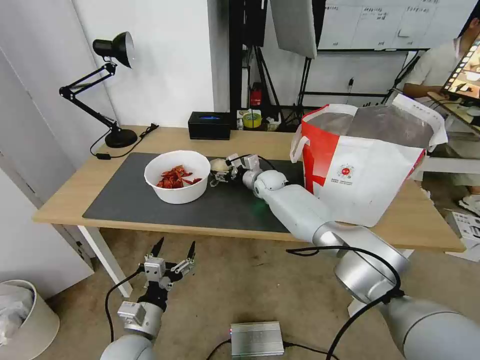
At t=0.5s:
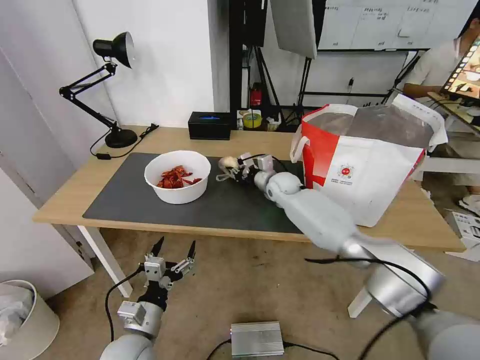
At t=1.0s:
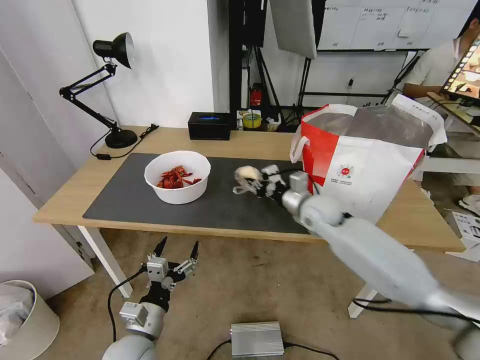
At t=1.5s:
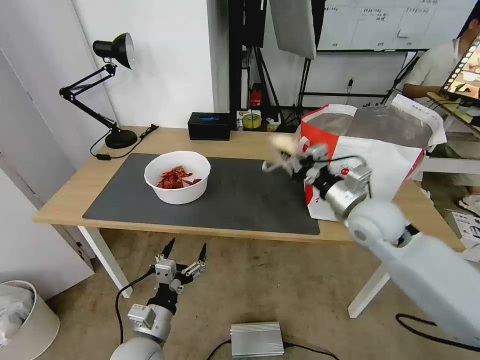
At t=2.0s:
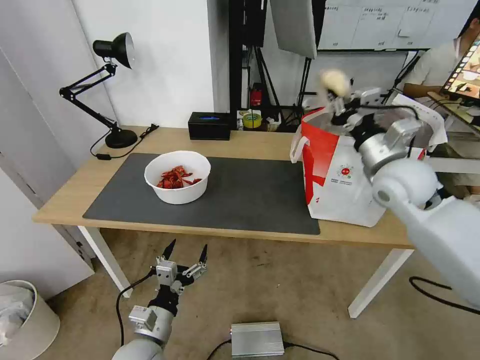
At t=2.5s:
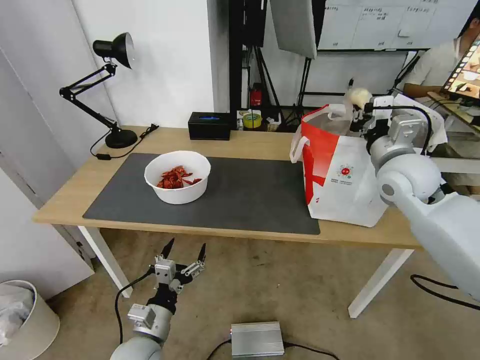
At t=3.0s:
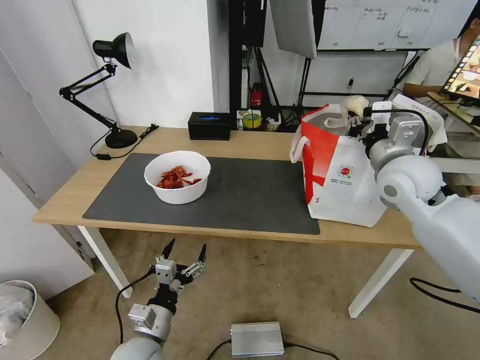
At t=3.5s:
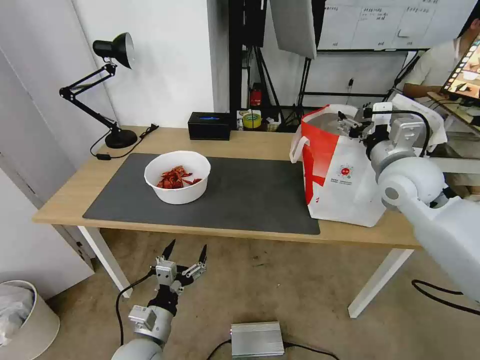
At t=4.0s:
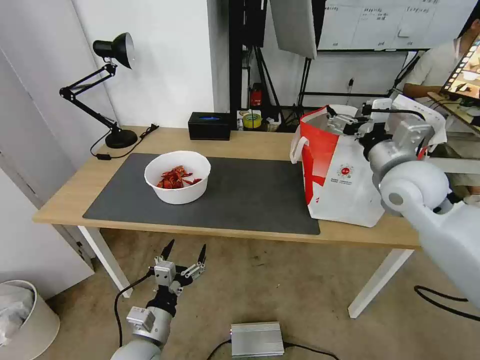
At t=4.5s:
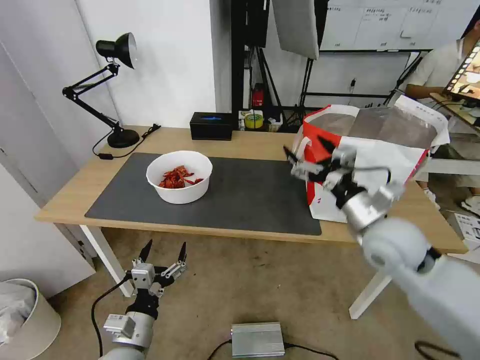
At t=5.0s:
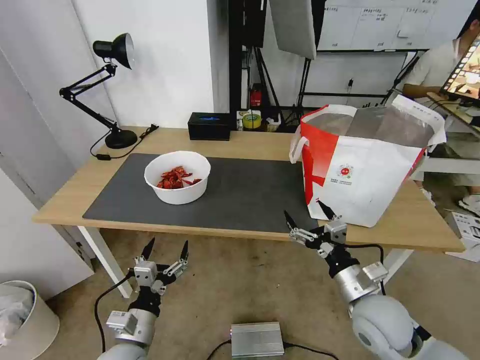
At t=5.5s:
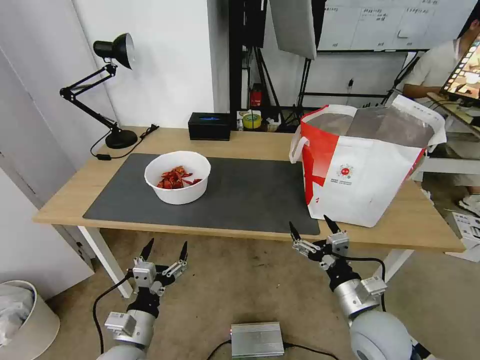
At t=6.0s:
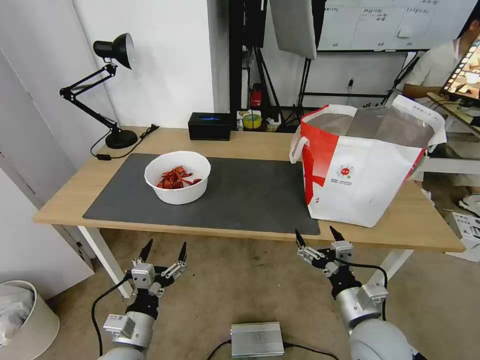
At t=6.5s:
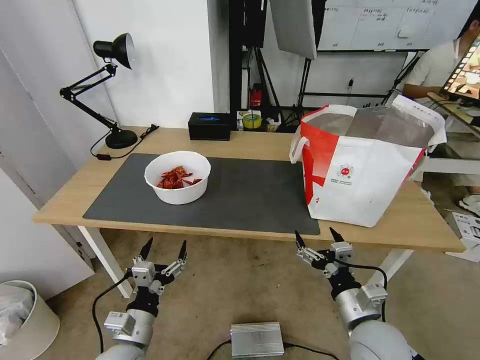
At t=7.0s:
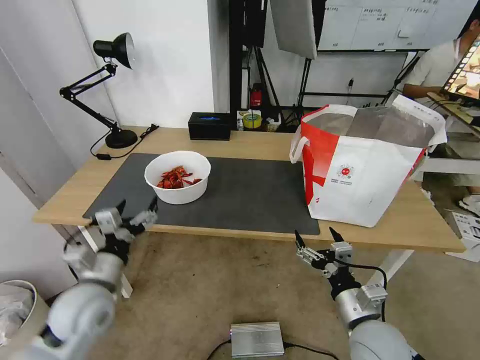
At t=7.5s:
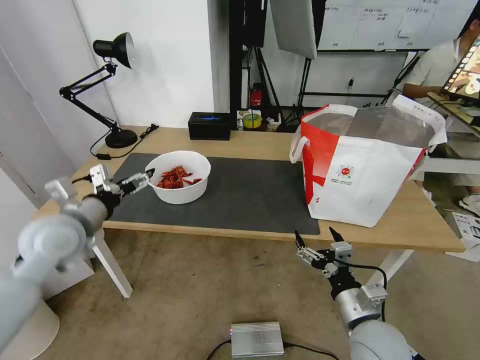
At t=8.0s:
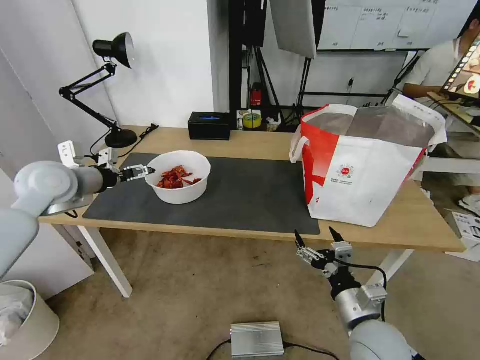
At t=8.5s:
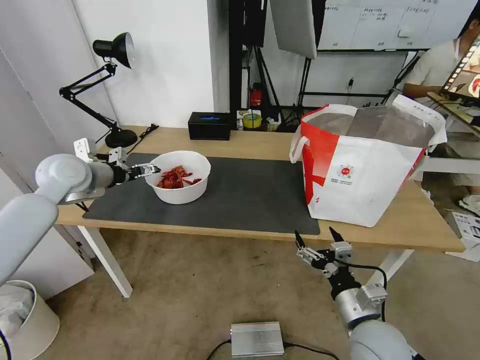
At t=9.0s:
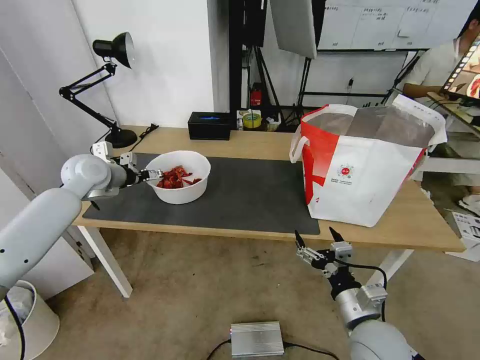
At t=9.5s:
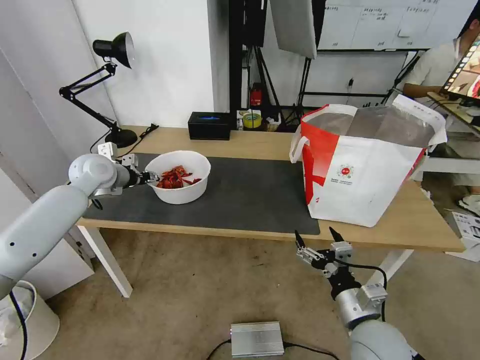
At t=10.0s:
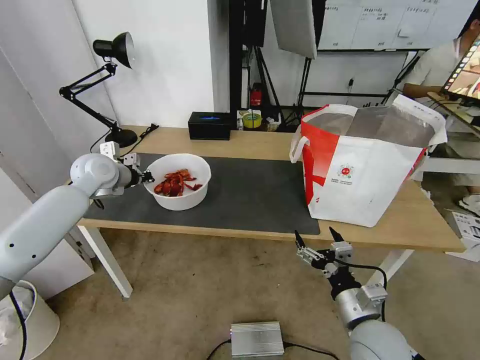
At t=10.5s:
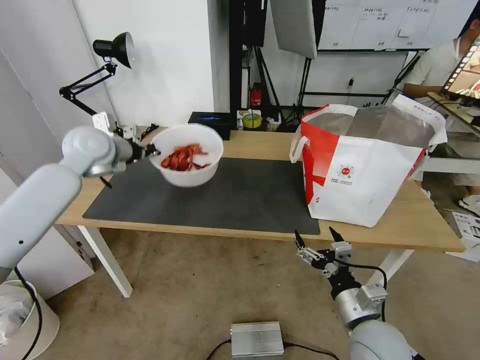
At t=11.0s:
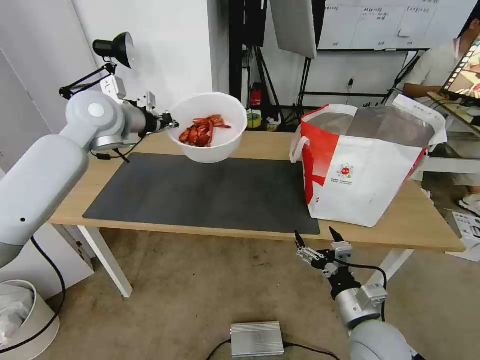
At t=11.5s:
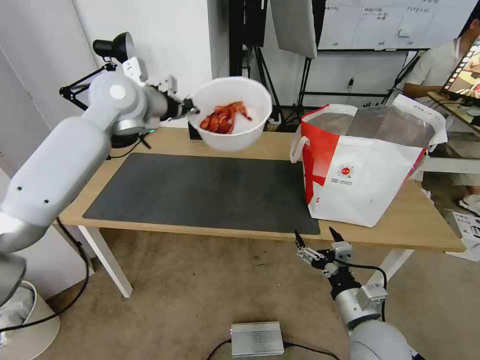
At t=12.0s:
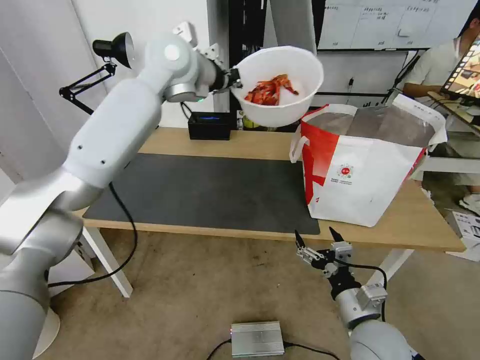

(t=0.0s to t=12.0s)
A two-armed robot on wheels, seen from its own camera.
Task of the whole recording: Pick up the trash from the table and place it into the takeout bag.
t=0.0s - t=2.0s: The right gripper goes about 35 cm to the right, backward and upward, and closes up.
t=2.0s - t=4.0s: The right gripper opens its fingers.
t=4.0s - t=6.0s: The right gripper travels downward and backward by approximately 30 cm.
t=6.0s - t=8.0s: The left gripper heads forward, upward and to the left, covering approximately 40 cm.
t=8.0s - t=10.0s: The left gripper heads forward, covering roughly 10 cm, and closes up.
t=10.0s - t=12.0s: The left gripper goes about 30 cm upward and to the right.

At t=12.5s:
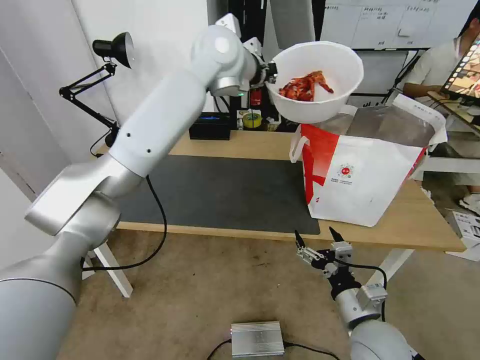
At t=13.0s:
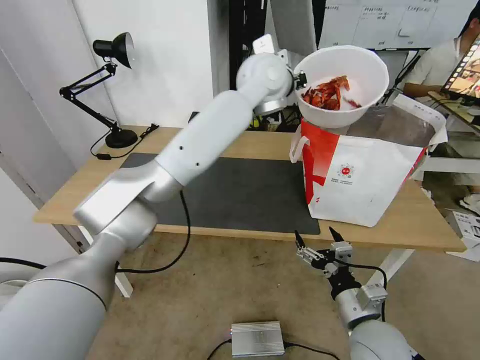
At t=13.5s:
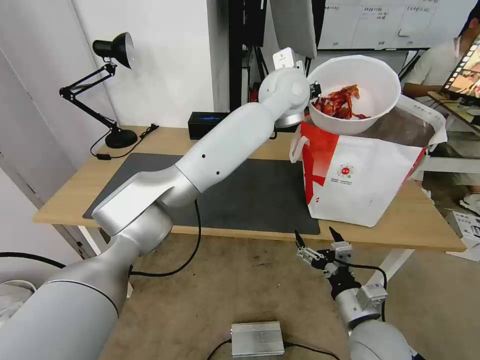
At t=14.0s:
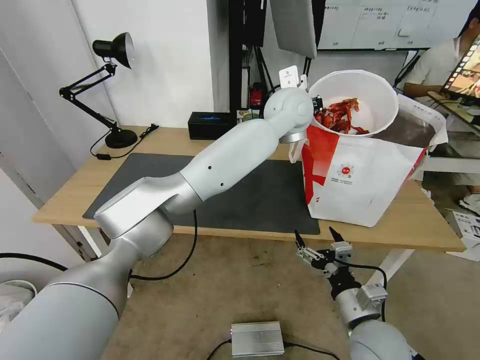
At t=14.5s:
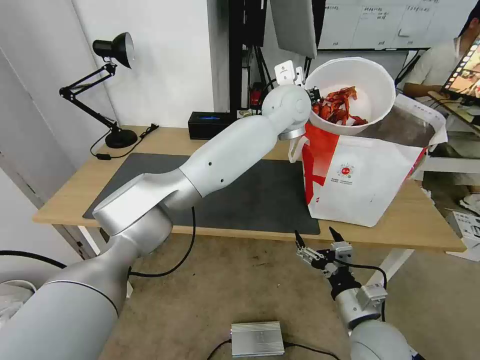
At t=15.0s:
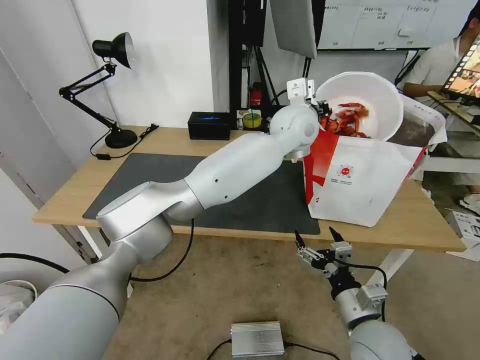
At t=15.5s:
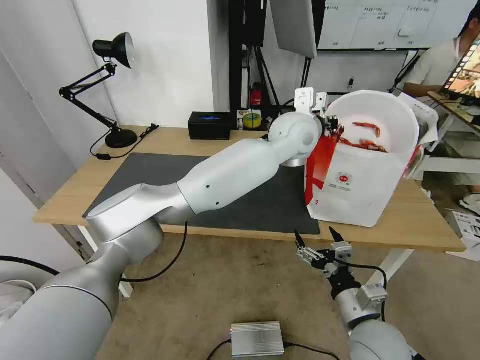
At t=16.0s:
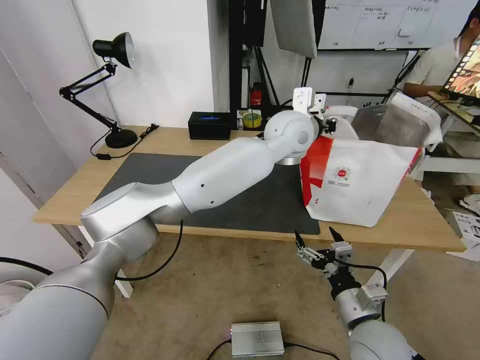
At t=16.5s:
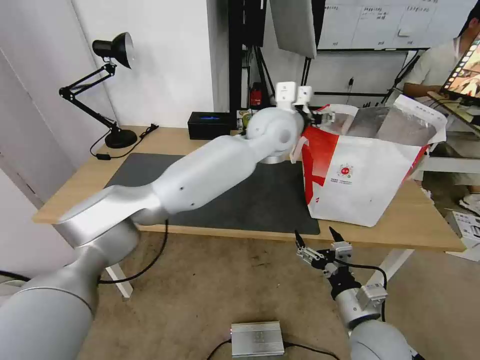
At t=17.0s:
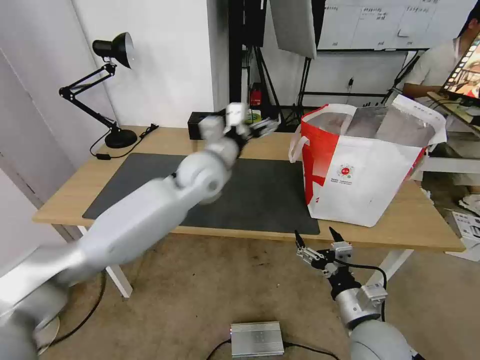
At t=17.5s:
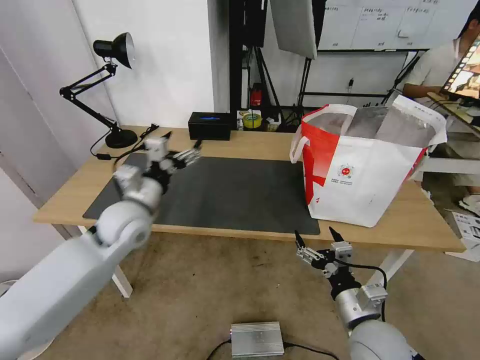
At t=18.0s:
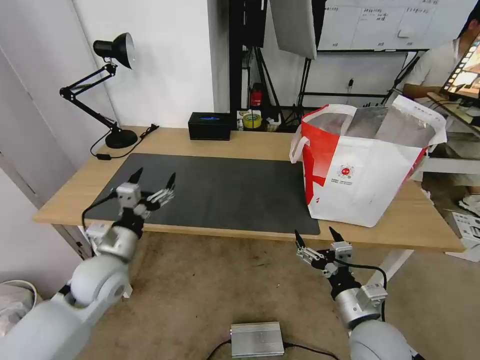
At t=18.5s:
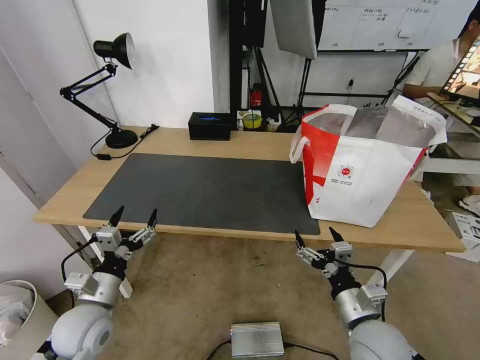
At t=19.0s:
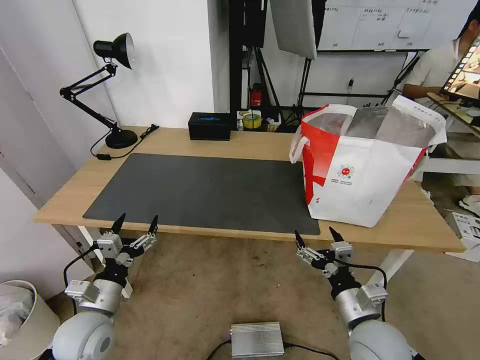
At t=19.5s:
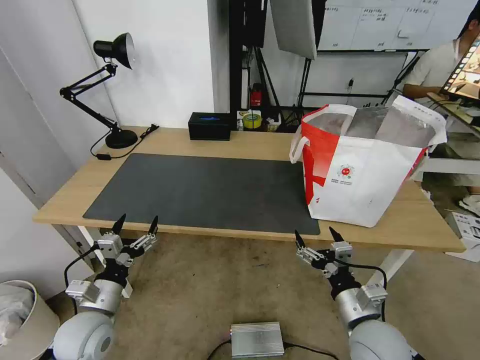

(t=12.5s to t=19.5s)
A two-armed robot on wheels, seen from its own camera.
Task of the whole recording: Pick up the trash from the table and place it into the takeout bag.
t=12.5s - t=14.5s: The left gripper is displaced to the right and downward by approximately 15 cm.
t=14.5s - t=16.0s: The left gripper moves roughly 5 cm, and opens.
t=16.0s - t=17.5s: The left gripper travels to the left and downward by some 35 cm, and opens up.
t=17.5s - t=19.5s: The left gripper travels backward, downward and to the left by roughly 20 cm.

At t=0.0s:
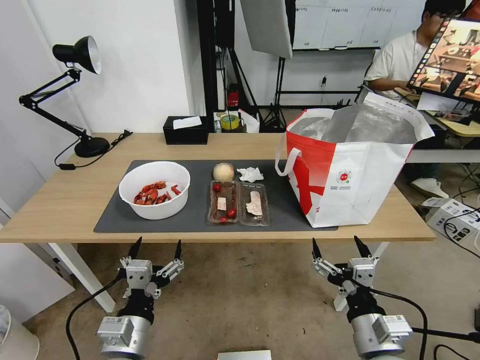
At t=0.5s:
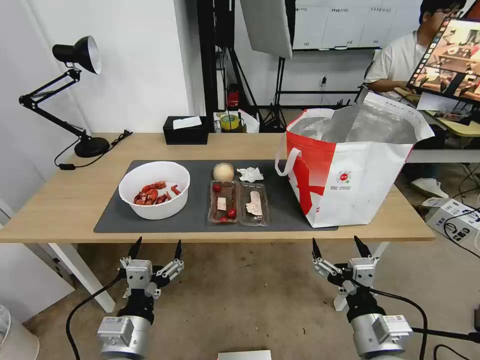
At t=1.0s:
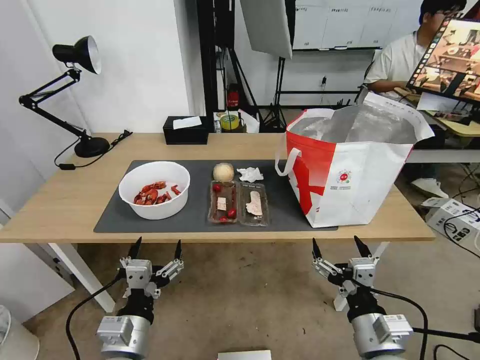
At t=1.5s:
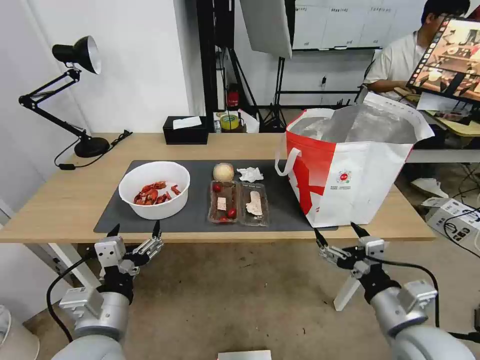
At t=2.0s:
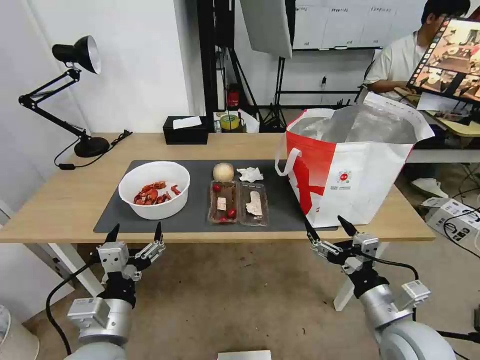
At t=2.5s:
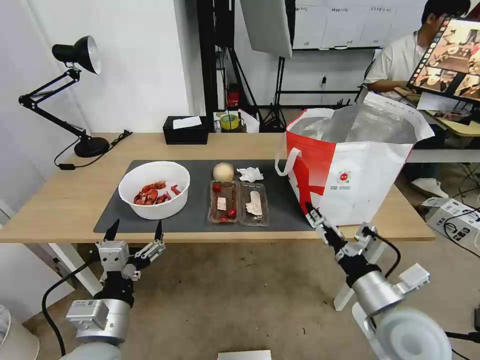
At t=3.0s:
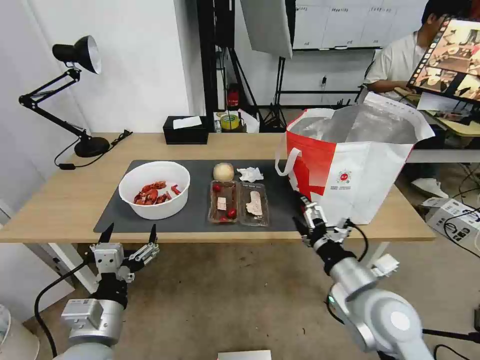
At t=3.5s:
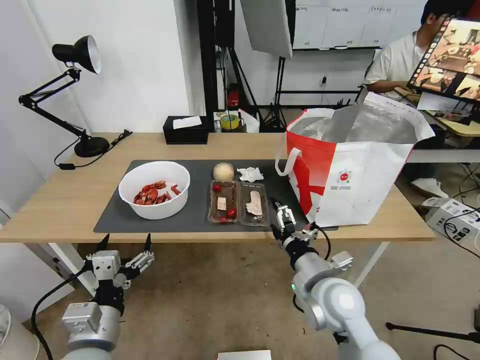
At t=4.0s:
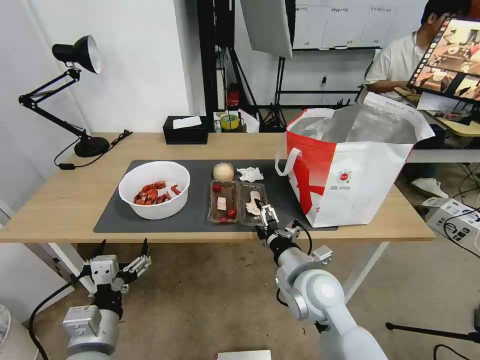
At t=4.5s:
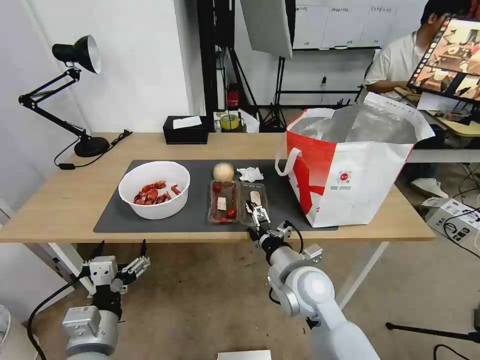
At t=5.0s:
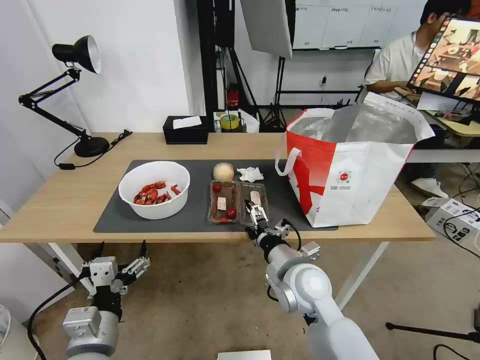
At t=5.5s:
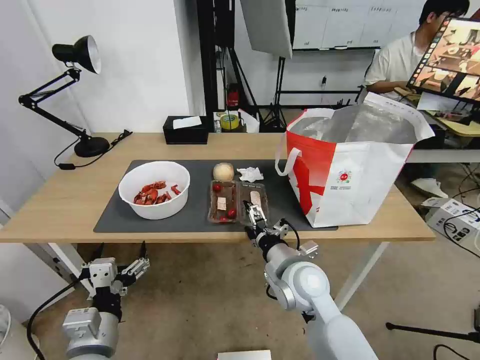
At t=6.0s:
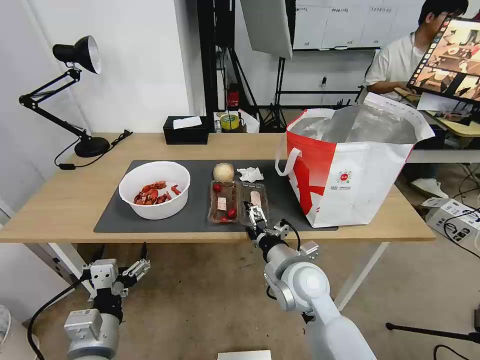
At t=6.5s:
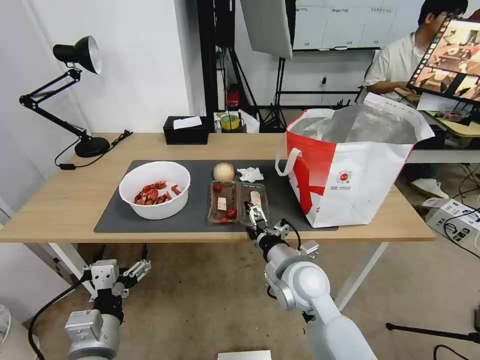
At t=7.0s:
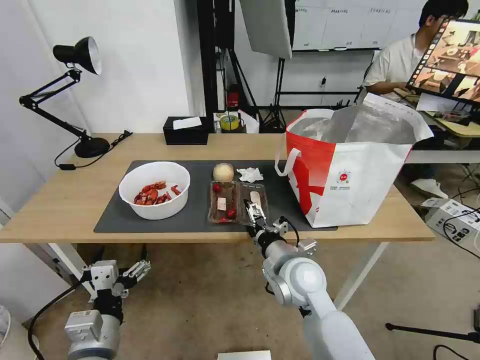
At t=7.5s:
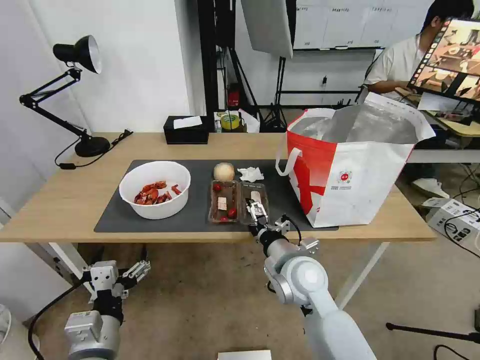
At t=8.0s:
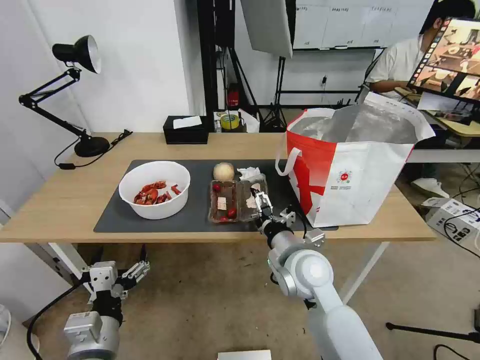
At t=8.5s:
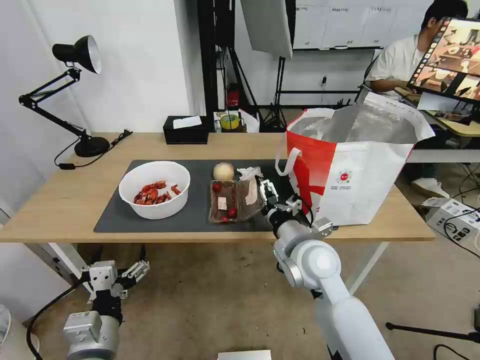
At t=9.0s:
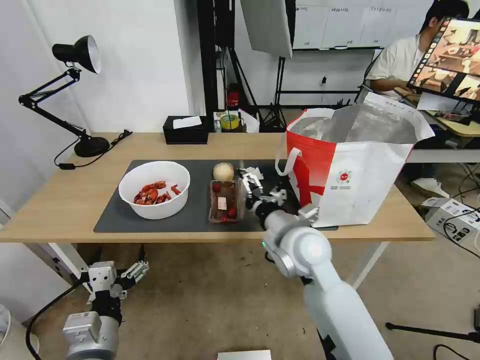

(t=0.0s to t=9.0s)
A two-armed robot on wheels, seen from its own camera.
Task of the whole recording: Pick up the trash from the table and place it into the takeout bag.
t=2.0s - t=4.5s: The right gripper is displaced to the left and forward by some 20 cm.
t=4.5s - t=7.0s: The grippers make only small movements.
t=7.0s - t=9.0s: The right gripper is displaced upward by some 5 cm.
